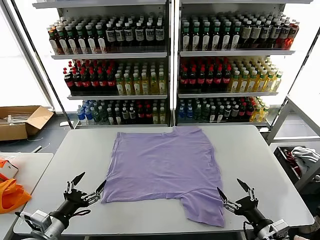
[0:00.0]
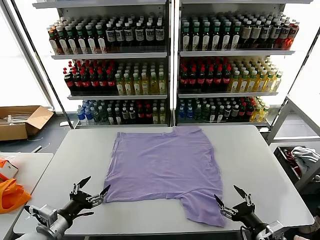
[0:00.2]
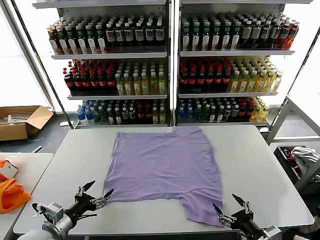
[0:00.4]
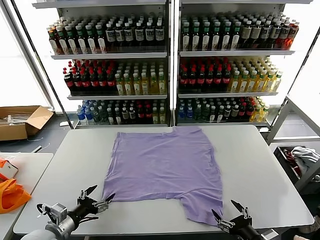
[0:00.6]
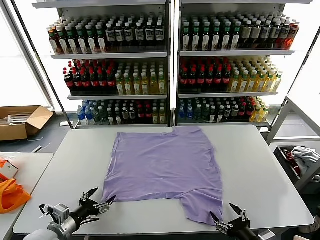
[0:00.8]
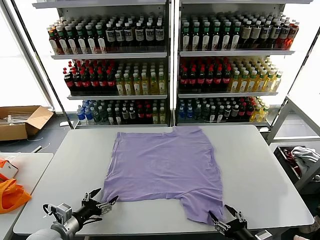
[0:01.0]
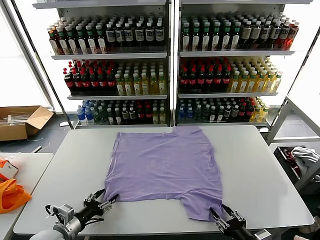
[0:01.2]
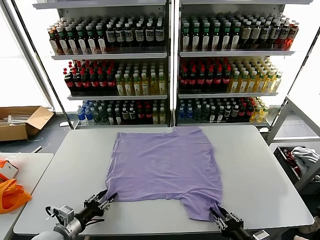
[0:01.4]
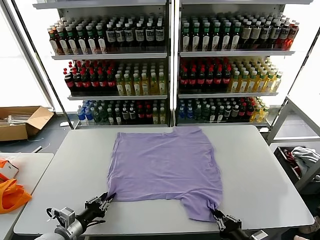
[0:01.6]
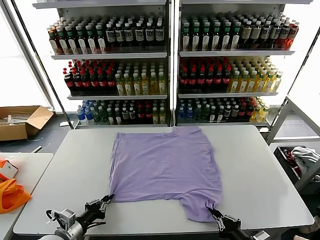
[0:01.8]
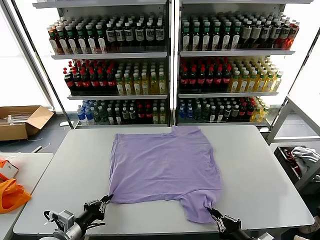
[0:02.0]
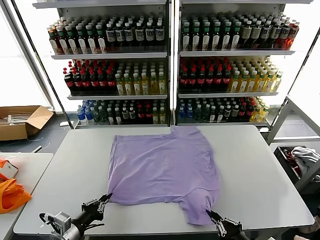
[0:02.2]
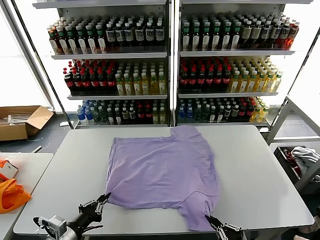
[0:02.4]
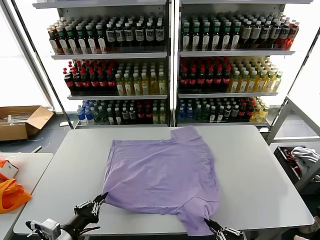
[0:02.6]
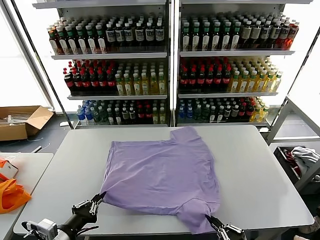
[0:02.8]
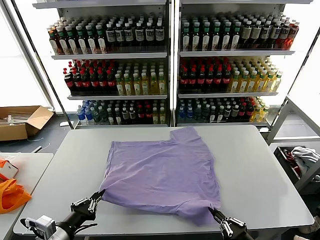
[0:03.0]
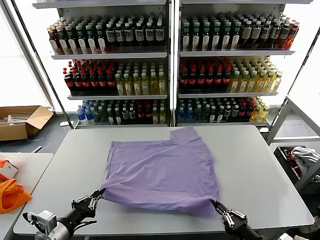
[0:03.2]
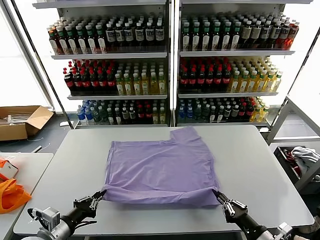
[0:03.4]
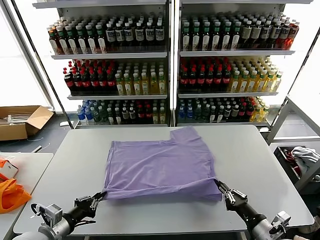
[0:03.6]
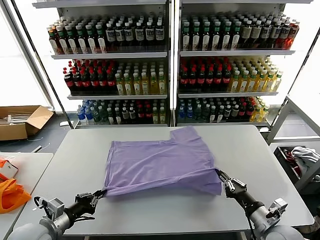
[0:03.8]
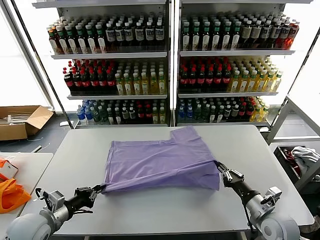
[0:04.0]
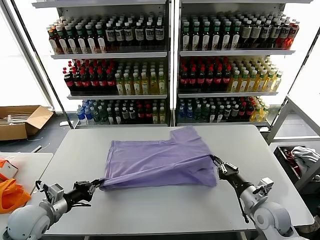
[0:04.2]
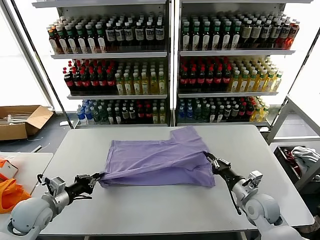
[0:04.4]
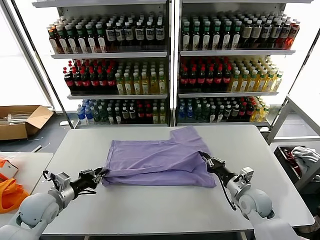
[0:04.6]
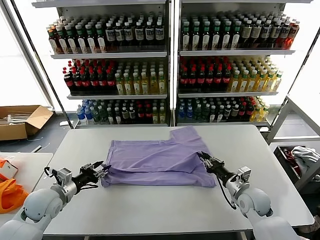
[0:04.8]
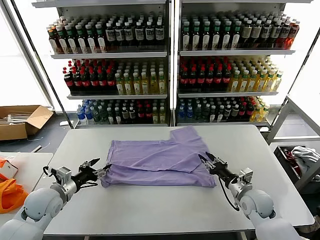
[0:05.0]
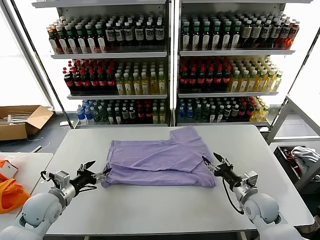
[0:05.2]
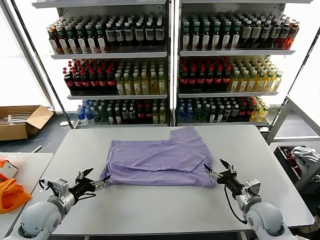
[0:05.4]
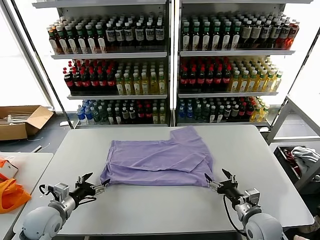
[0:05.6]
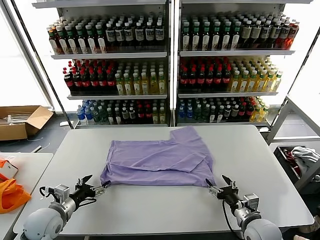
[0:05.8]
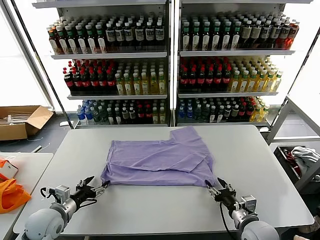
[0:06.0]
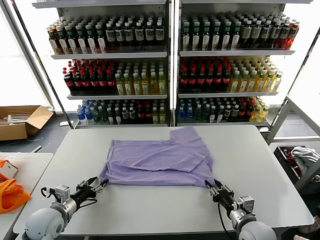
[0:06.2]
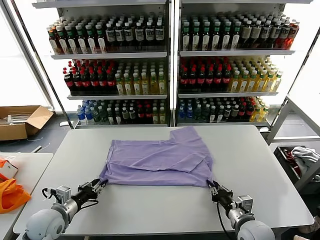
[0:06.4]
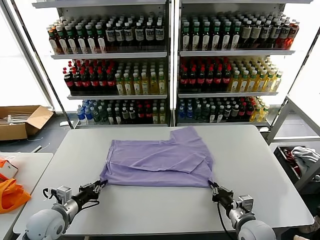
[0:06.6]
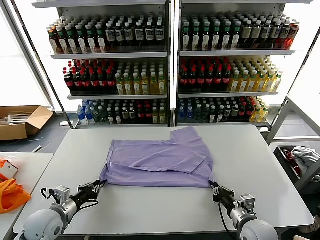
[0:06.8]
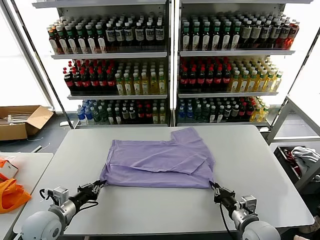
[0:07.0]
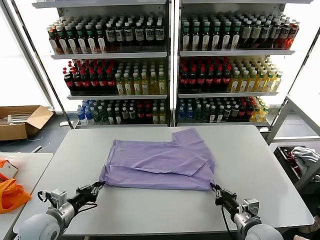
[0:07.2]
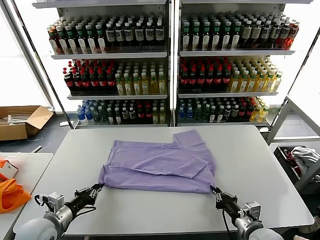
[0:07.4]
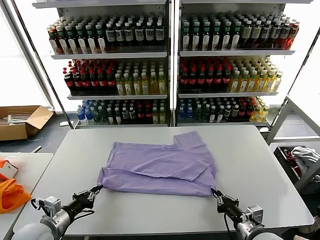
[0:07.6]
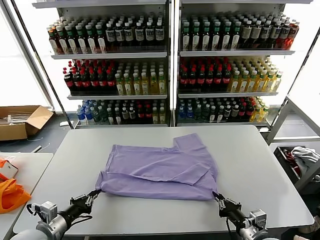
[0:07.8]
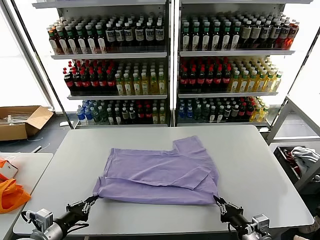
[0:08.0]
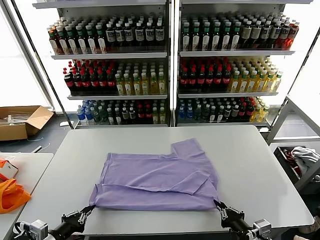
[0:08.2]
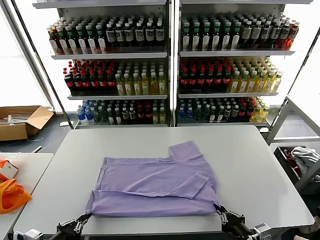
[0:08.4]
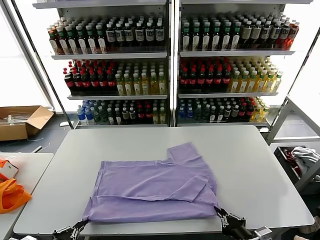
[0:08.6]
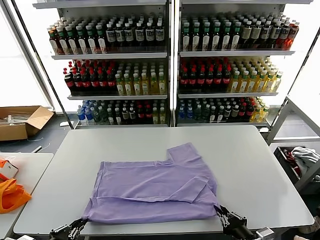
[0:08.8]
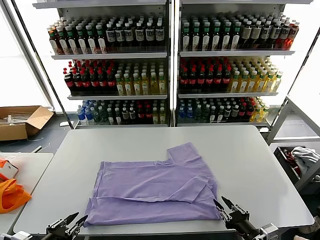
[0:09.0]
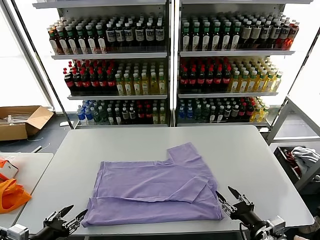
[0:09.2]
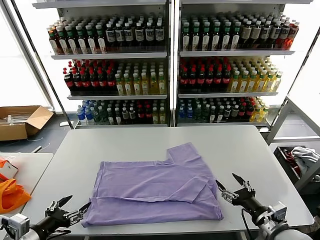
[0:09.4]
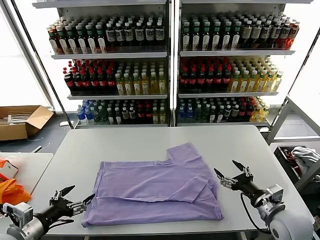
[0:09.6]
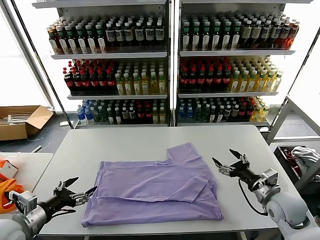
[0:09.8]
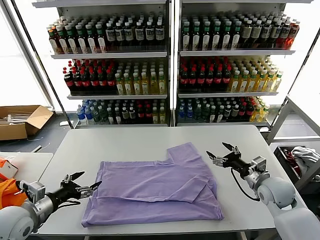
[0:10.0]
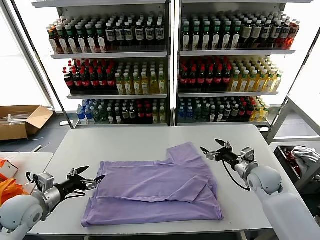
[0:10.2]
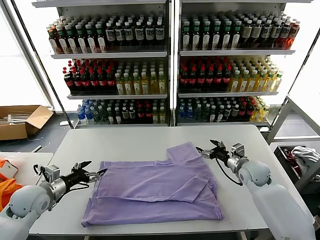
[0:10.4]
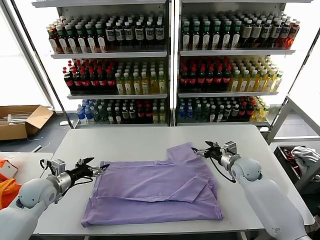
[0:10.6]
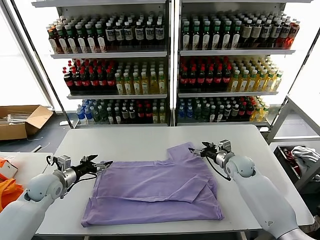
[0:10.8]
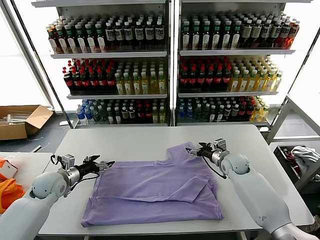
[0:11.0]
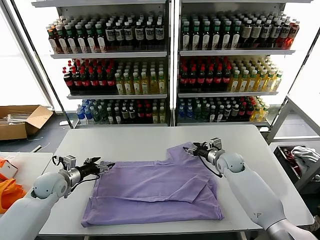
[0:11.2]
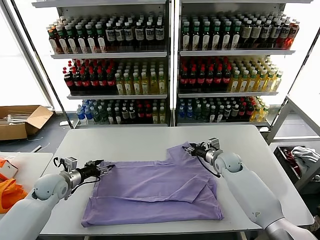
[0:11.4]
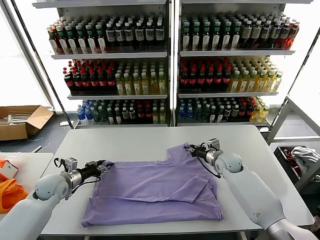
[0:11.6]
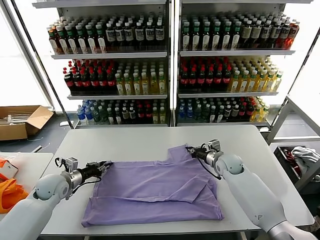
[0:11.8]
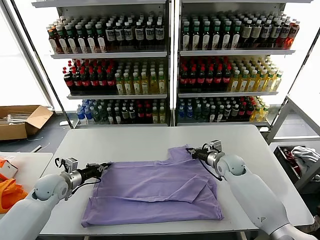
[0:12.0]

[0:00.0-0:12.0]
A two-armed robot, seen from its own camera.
Task of the whole recording: fold and organize the clothes.
Step, 0:00.0 to 0:01.8: use both grippers simultaneously to clamp the lower edge of the clothing fabric.
Step, 0:02.0 to 0:05.0: use both grippers to drag the lower edge of the fabric forward and fold it over the upper edge.
Step, 0:05.2 to 0:09.0: Drag the clothes downward with both gripper.
Step, 0:09.2 to 0:12.0: use both grippers simultaneously to clamp the upper edge of the clothing fabric.
0:01.6 to 0:03.0: The left gripper goes about 10 cm upward and backward.
0:03.0 to 0:04.4: The right gripper goes some 20 cm forward, while the left gripper shifts some 15 cm forward and to the left.
0:04.4 to 0:06.0: The left gripper moves about 5 cm, and opens up. Meanwhile the right gripper moves backward, roughly 10 cm, and opens.
0:06.0 to 0:07.6: The left gripper shifts approximately 5 cm backward, and closes. The right gripper shifts by roughly 5 cm, and closes its fingers.
0:07.6 to 0:09.0: The right gripper ends up about 5 cm from where it was, and opens. The left gripper travels backward and upward by approximately 10 cm, and opens.
0:09.0 to 0:10.4: The grippers both shift forward by approximately 25 cm. The right gripper opens its fingers. Meanwhile the left gripper opens.
0:10.4 to 0:12.0: The left gripper moves forward, about 5 cm, and closes. Meanwhile the right gripper heads to the left, covering some 5 cm, and closes up.

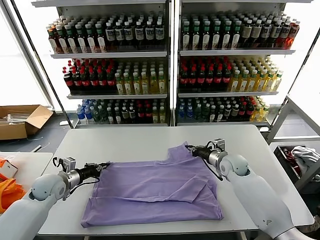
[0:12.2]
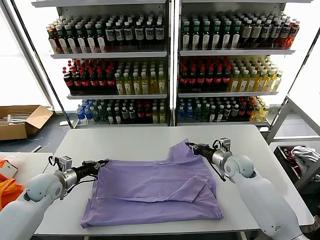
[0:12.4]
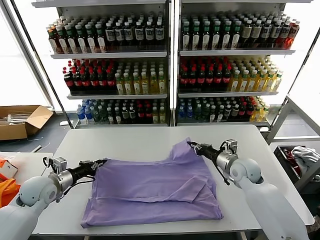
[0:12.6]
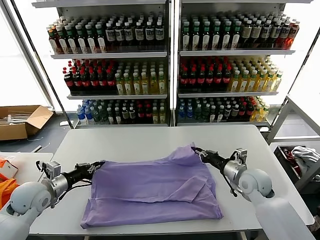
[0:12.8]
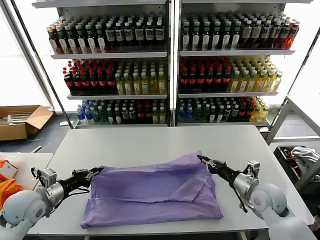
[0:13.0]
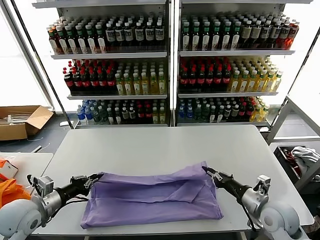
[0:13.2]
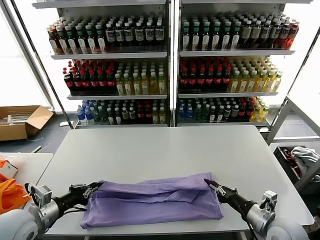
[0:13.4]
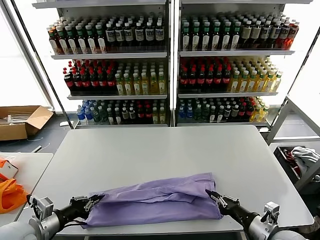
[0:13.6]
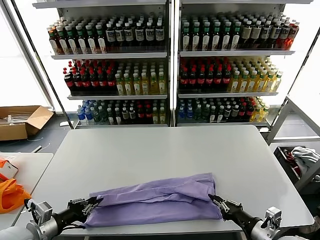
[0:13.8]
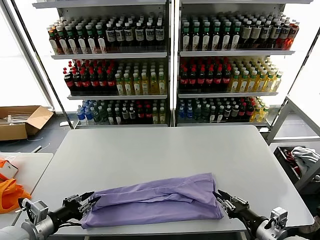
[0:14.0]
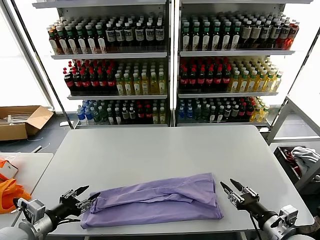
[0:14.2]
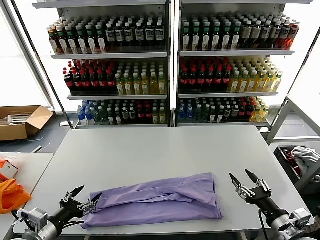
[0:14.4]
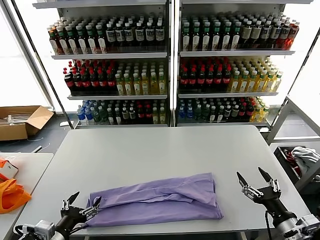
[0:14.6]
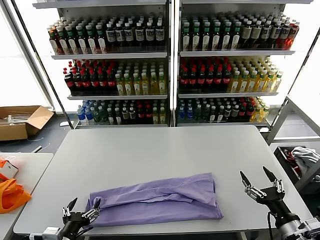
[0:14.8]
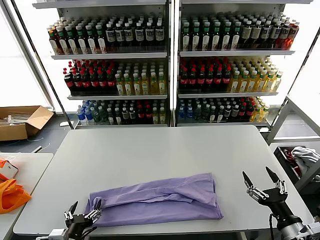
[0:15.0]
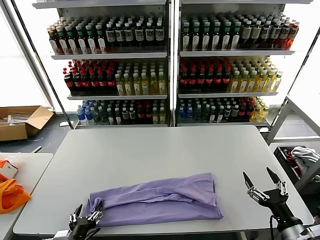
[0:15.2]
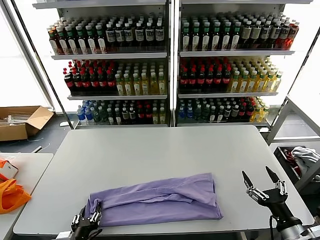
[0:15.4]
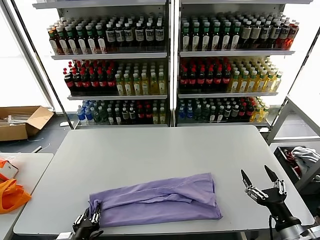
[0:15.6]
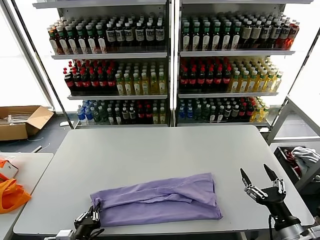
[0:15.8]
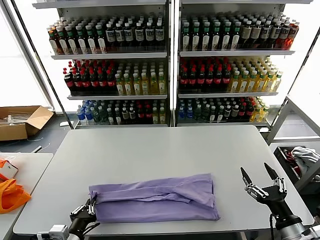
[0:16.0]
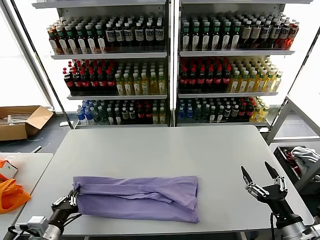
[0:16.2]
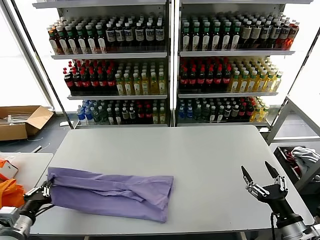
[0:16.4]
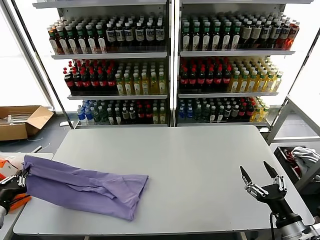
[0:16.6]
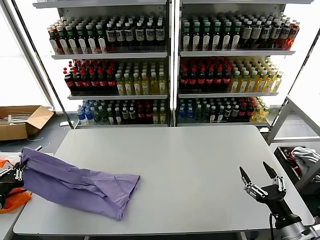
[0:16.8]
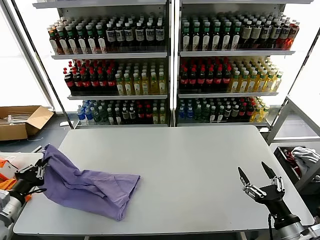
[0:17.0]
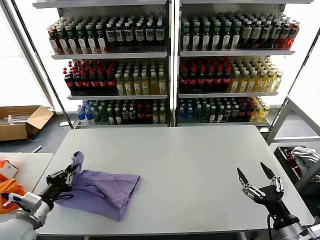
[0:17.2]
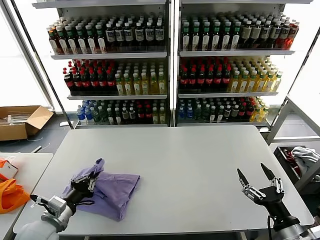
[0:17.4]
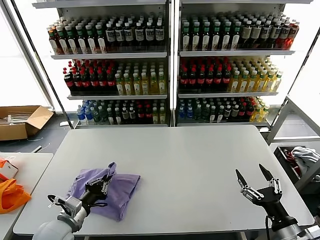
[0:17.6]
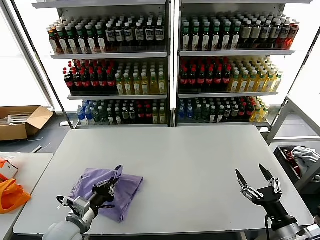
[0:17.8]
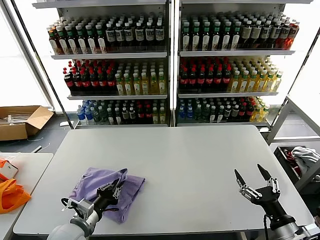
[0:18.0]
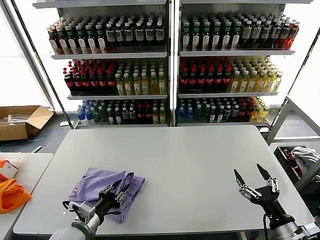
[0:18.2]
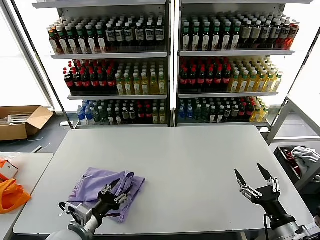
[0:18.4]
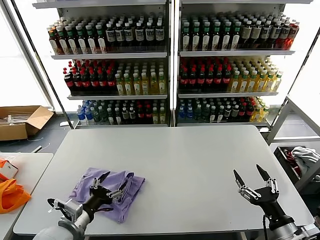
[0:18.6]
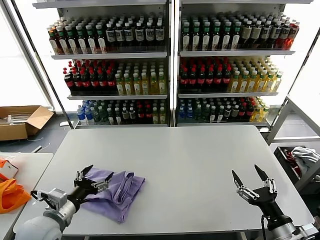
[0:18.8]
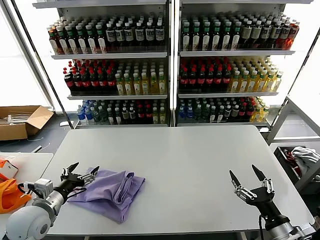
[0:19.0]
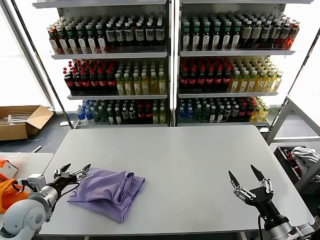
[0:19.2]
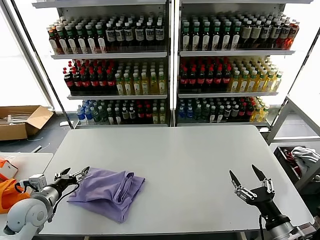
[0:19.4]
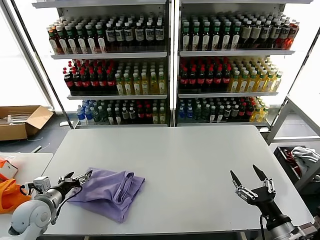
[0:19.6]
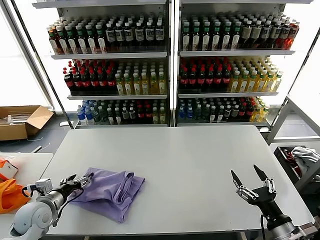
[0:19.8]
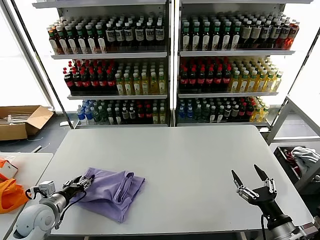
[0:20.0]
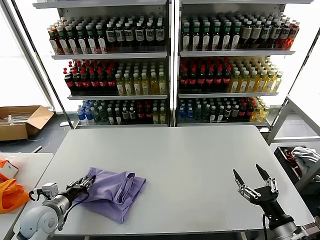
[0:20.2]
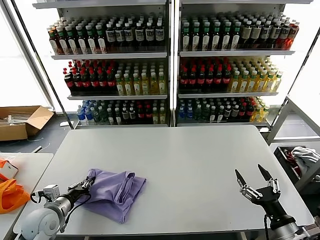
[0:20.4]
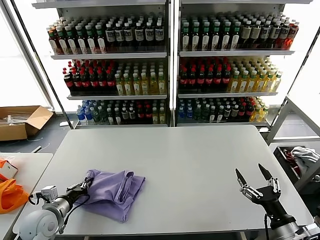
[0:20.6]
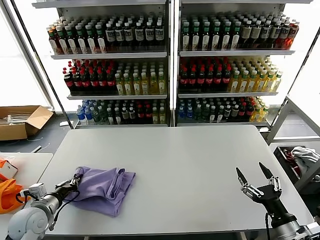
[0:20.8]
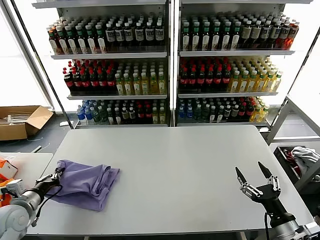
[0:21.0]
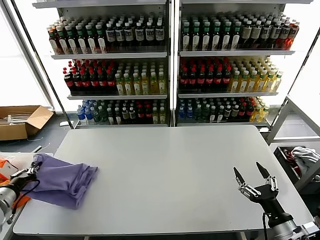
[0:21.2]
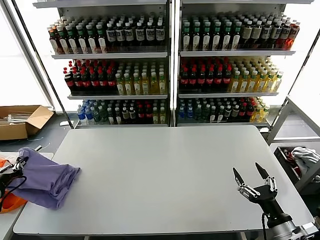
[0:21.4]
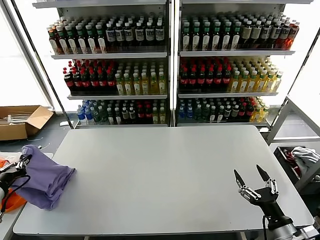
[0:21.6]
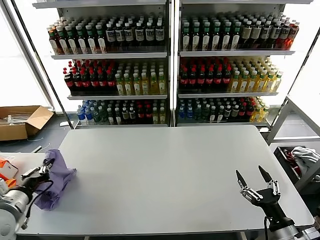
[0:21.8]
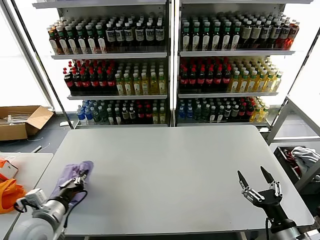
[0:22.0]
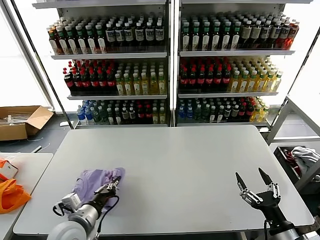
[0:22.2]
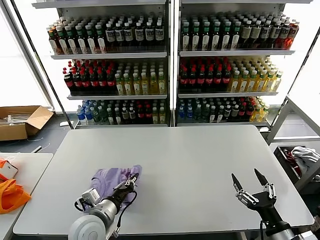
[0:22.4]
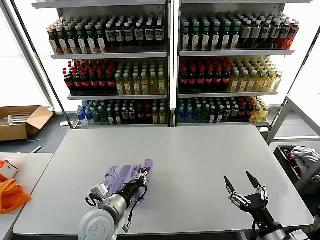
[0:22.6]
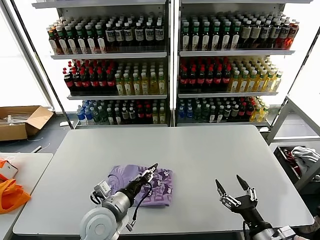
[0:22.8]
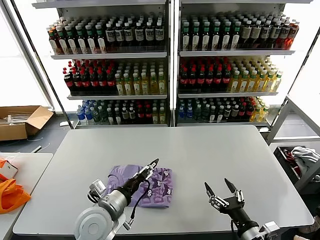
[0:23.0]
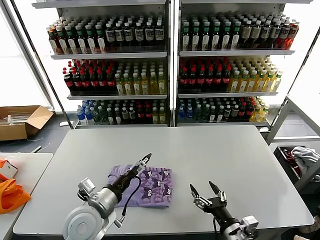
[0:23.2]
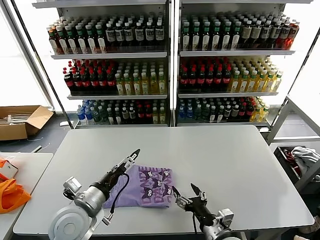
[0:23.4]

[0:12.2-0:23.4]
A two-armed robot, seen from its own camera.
Task of the whole recording: fold and organize the clothes.
Step, 0:12.2 to 0:14.0: use both grippers to drag the upper edge of the fabric backward and fold it over the lower edge.
Step, 0:14.2 to 0:15.8: use the left gripper to clamp the left edge of the fabric.
Step, 0:16.0 to 0:18.2: use the left gripper to drag the left edge of the fabric to the left and folds it over the right edge.
Step, 0:18.4 to 0:22.8: Flip the folded clothes over with left gripper.
0:12.2 to 0:13.8: The right gripper is displaced backward by approximately 30 cm. The left gripper is displaced backward by roughly 20 cm.
0:13.8 to 0:15.4: The left gripper shifts some 15 cm to the right, downward and backward, and opens its fingers. Meanwhile the right gripper ends up some 5 cm from where it was, and opens up.
0:15.4 to 0:17.0: The left gripper is displaced to the left and upward by about 25 cm, and closes up.
0:17.0 to 0:18.6: The left gripper shifts roughly 20 cm to the right, and opens.
0:18.6 to 0:20.2: The left gripper moves to the left and forward, some 15 cm.
0:20.2 to 0:21.8: The left gripper is displaced upward, backward and to the left by roughly 15 cm, and closes its fingers.
0:21.8 to 0:23.4: The left gripper goes some 20 cm to the right, and opens up, while the right gripper travels to the left by approximately 15 cm.
